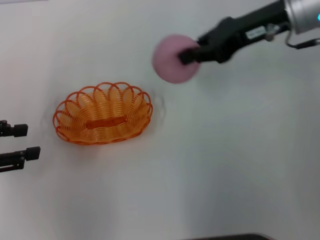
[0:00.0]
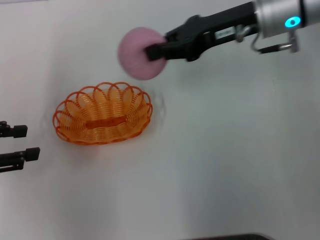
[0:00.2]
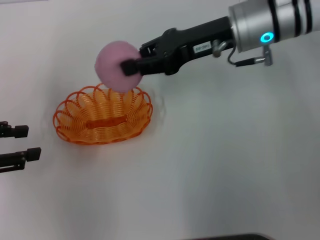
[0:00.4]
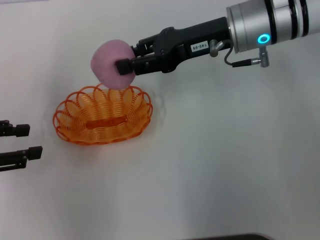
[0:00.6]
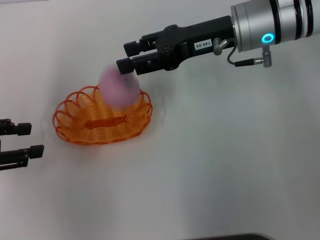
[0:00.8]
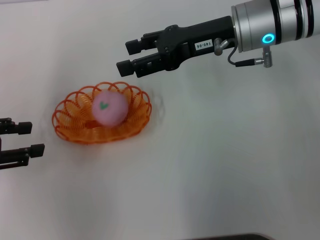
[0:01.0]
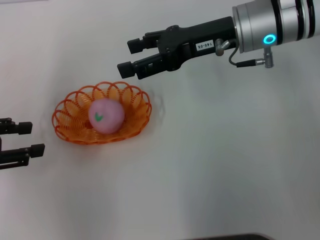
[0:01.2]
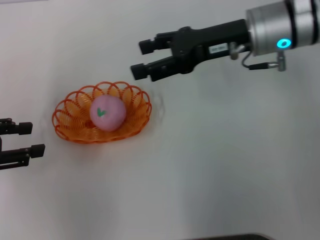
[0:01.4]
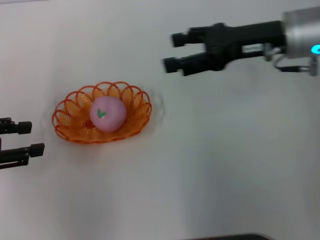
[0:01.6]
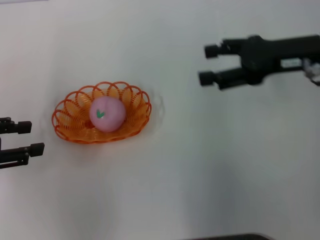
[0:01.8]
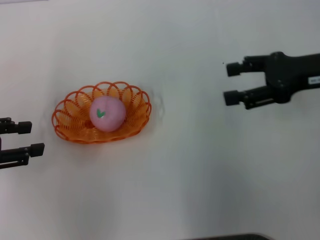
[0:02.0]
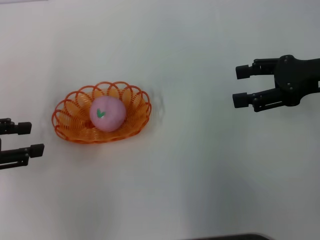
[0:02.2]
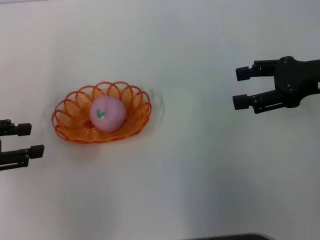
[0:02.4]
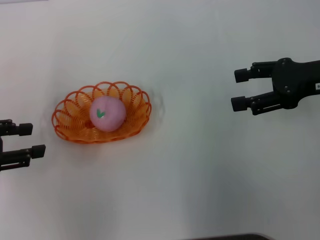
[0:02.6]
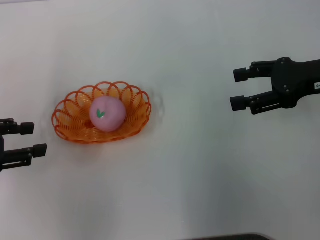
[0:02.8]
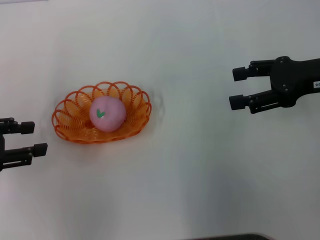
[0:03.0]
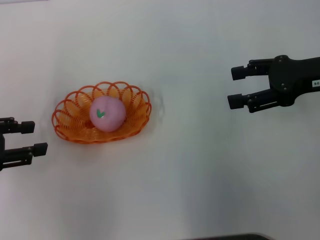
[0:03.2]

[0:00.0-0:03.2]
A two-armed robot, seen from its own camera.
Step, 0:00.0 to 0:01.4: Place the peach into the basket with the right gripper.
0:00.0 to 0:01.6: The right gripper ends up approximately 5 cm from where it was, and opens up.
0:01.6 to 0:03.2: The right gripper heads to the right, covering roughly 5 cm.

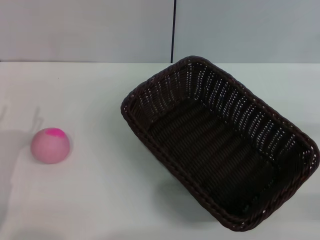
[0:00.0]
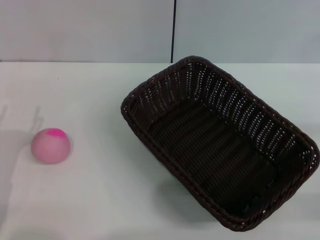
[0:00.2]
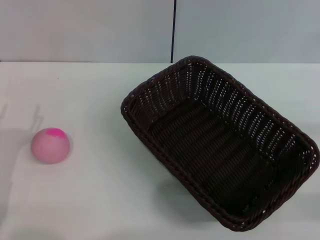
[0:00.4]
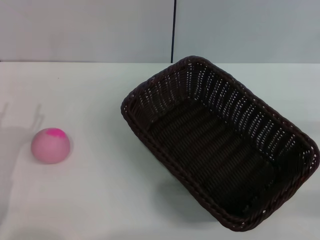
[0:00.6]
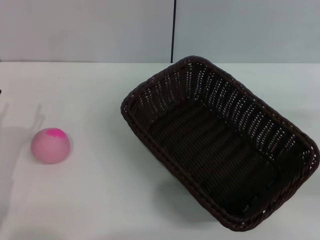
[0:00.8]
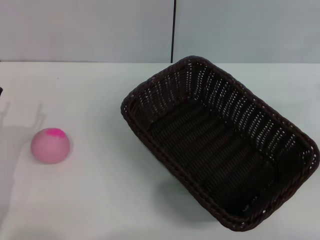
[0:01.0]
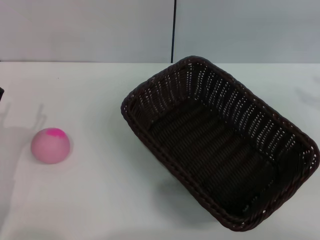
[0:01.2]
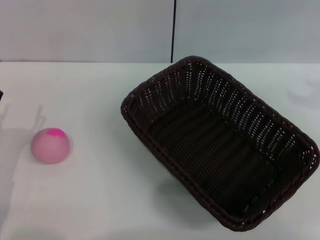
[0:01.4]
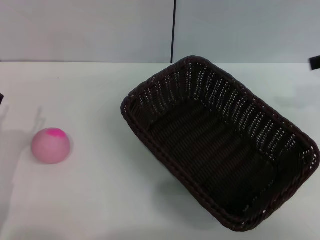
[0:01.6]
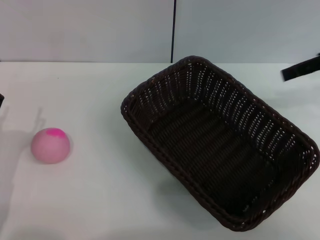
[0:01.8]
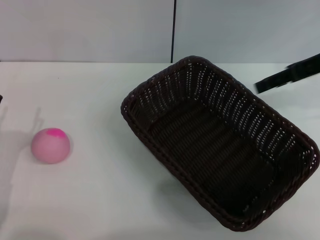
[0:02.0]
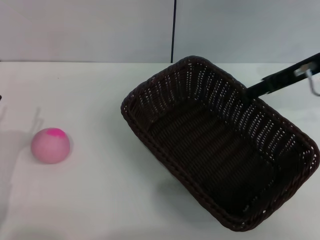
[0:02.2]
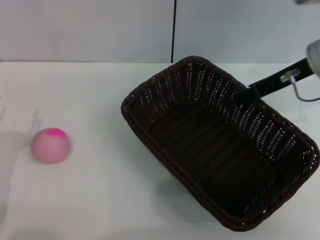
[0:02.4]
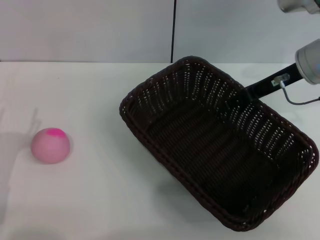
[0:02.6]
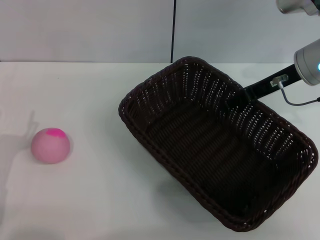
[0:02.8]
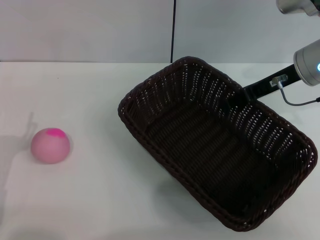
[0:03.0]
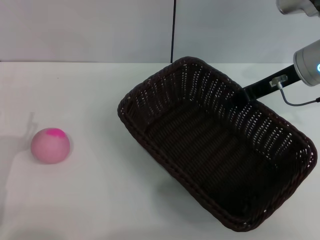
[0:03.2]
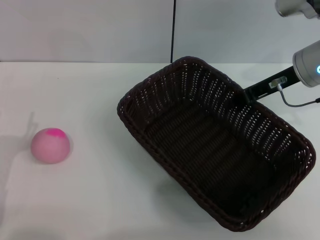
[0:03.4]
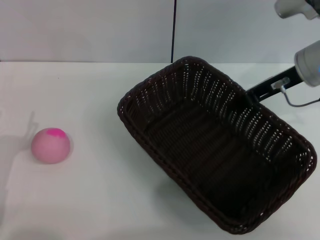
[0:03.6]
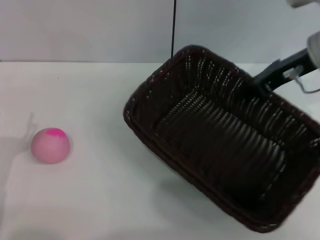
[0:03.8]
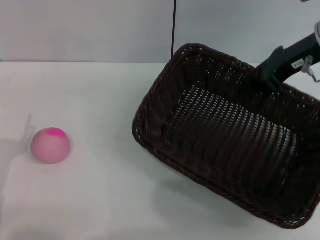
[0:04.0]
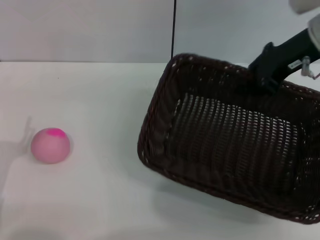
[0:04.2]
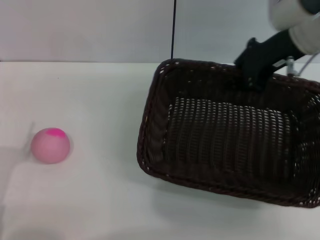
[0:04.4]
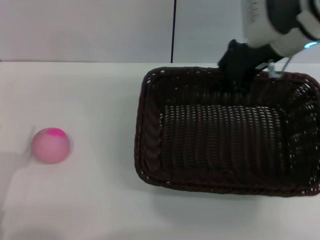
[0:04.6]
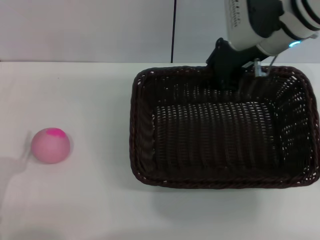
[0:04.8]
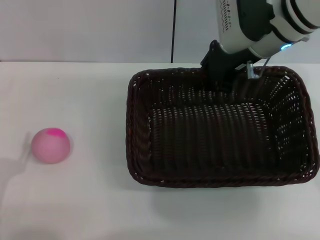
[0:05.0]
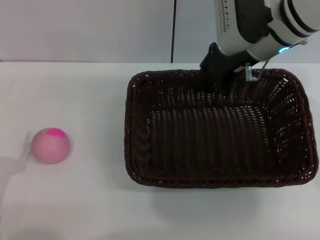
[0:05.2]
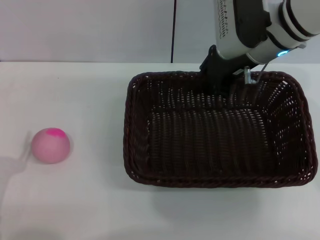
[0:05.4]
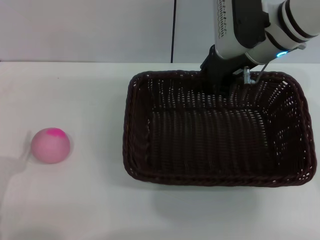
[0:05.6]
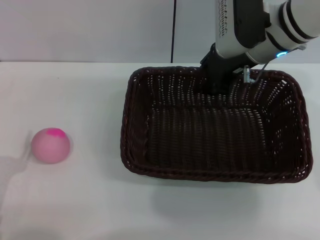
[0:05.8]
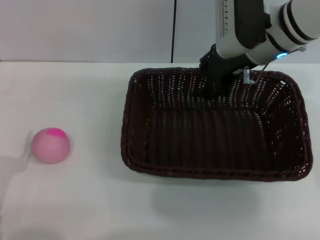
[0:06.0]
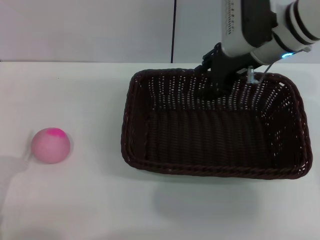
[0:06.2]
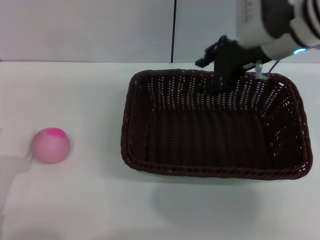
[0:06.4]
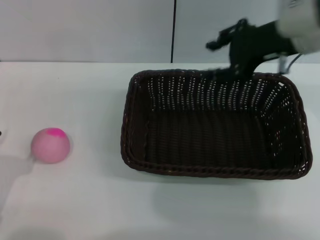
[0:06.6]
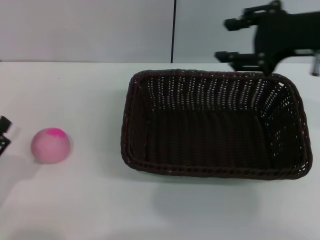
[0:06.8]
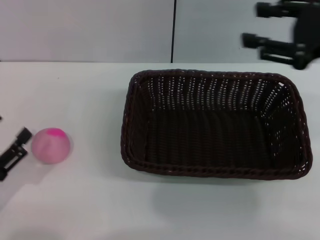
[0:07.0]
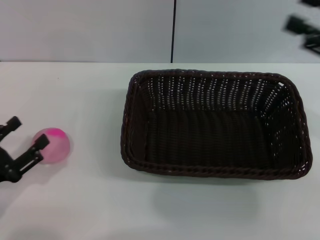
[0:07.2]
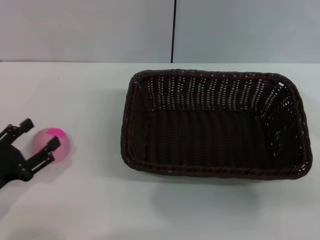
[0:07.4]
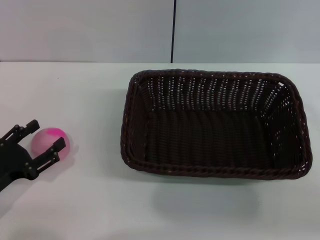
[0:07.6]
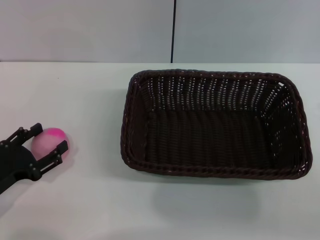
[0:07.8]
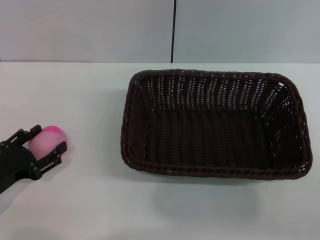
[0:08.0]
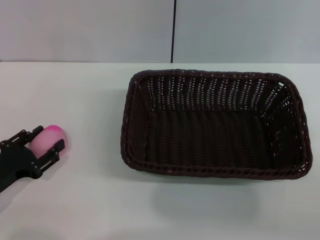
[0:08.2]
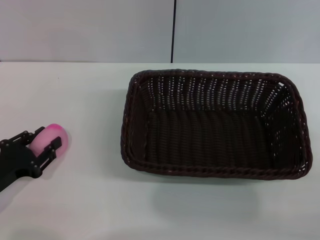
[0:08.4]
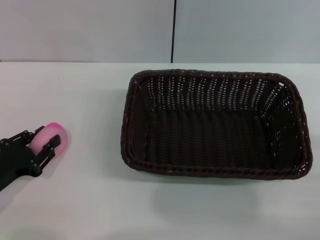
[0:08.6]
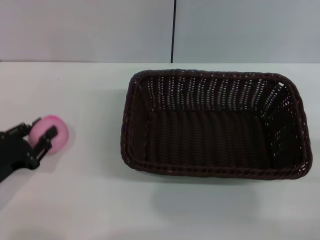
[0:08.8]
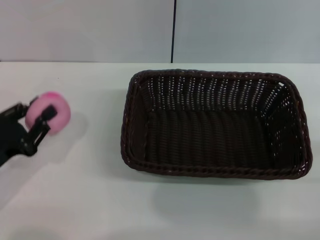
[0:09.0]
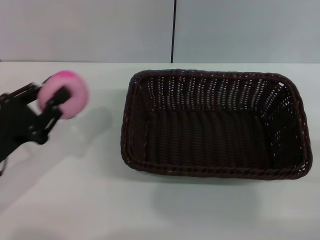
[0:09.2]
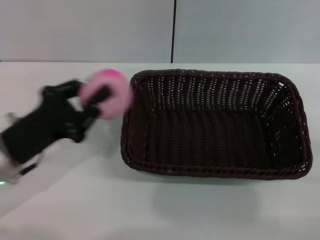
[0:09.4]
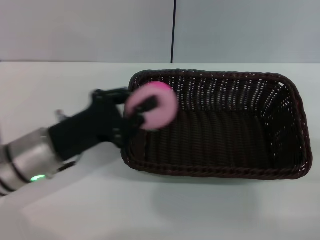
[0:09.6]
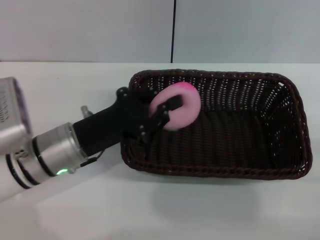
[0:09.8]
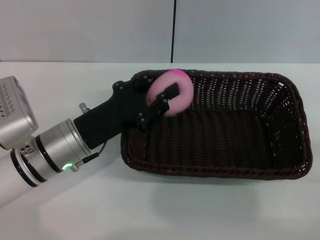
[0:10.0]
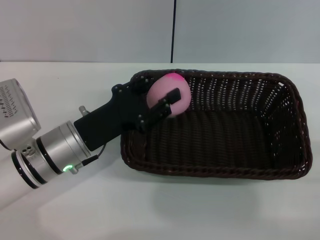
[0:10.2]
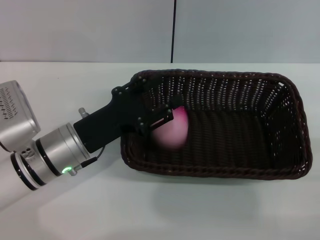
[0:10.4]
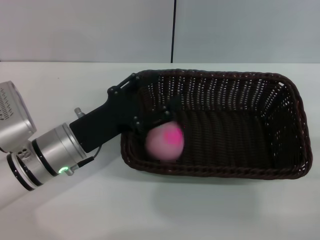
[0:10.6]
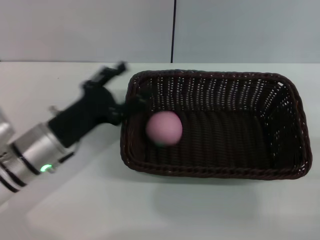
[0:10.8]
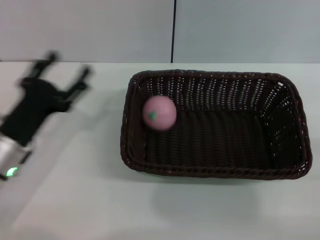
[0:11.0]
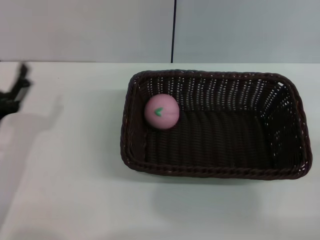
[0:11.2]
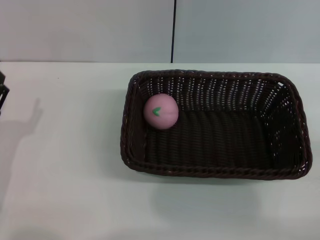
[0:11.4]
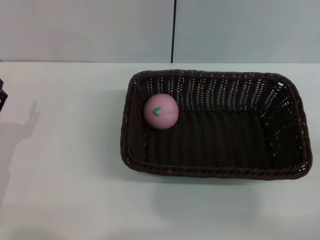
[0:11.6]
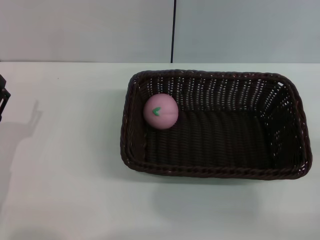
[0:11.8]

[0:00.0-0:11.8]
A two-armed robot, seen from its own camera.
Step, 0:00.0 to 0:04.0: Pick up the dark basket with the right gripper.
Step, 0:04.2 to 0:06.4: Place the dark basket in the center of view with the right gripper.
Step, 0:06.6 to 0:09.0: Pick up the peach with the left gripper.
Step, 0:09.4 to 0:10.6: Place the peach into the basket with the left gripper.
0:01.4 to 0:03.0: The right gripper moves to the left, downward and forward, about 20 cm.
0:03.0 to 0:04.4: The right gripper moves upward, about 5 cm, and closes.
0:04.4 to 0:06.0: The right gripper shifts by about 5 cm, and opens its fingers.
0:06.0 to 0:07.4: The right gripper moves to the right and backward, roughly 25 cm, and opens its fingers. The left gripper shifts by roughly 5 cm.
0:07.4 to 0:08.8: The right gripper shifts approximately 10 cm downward and backward; the left gripper closes.
0:08.8 to 0:10.4: The left gripper travels to the right and forward by some 15 cm.
0:10.4 to 0:11.8: The left gripper goes approximately 15 cm to the left and backward, and opens up.
